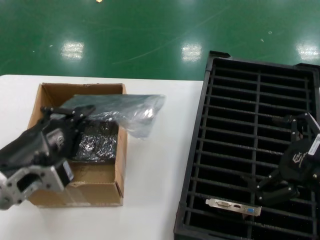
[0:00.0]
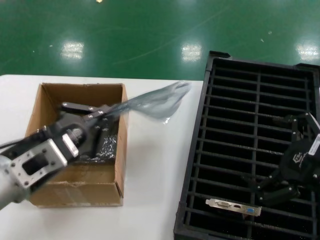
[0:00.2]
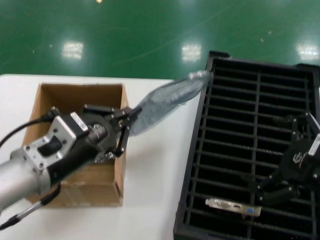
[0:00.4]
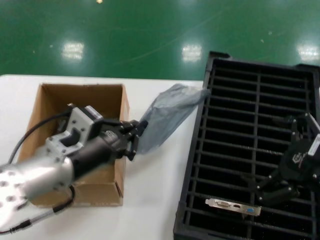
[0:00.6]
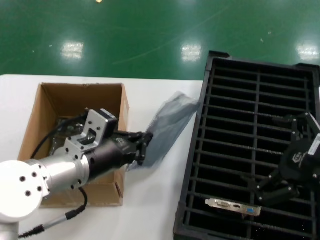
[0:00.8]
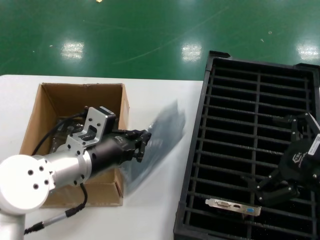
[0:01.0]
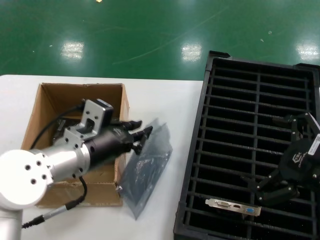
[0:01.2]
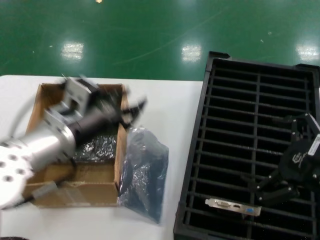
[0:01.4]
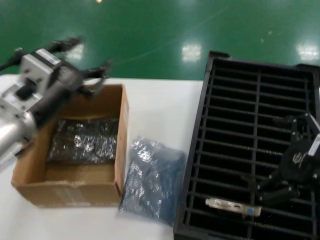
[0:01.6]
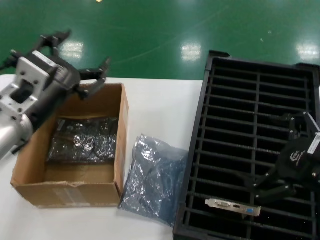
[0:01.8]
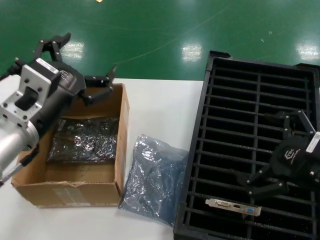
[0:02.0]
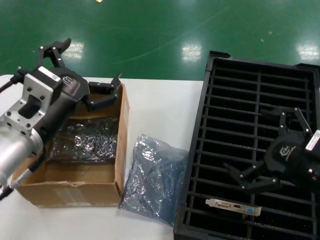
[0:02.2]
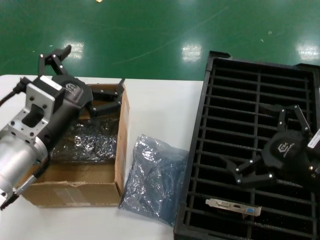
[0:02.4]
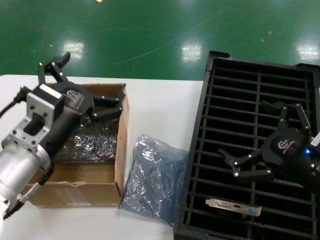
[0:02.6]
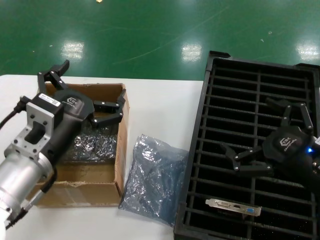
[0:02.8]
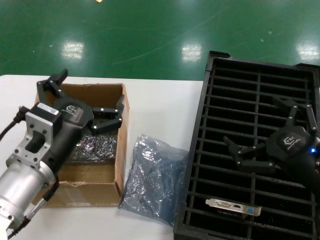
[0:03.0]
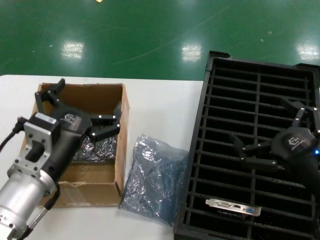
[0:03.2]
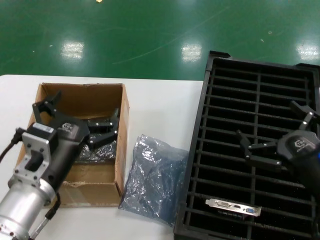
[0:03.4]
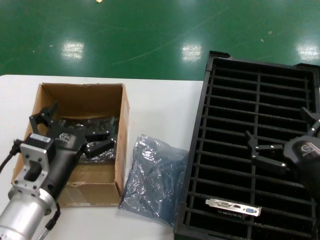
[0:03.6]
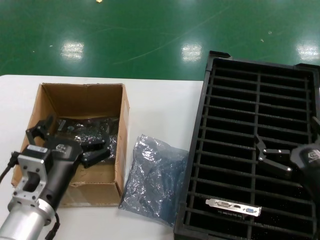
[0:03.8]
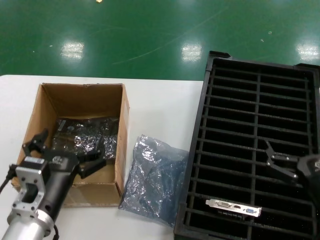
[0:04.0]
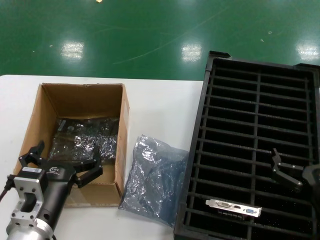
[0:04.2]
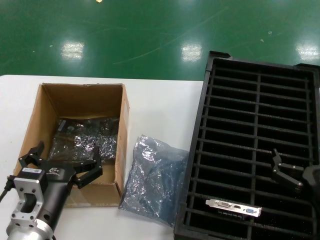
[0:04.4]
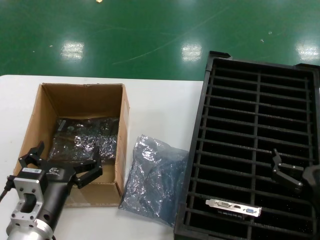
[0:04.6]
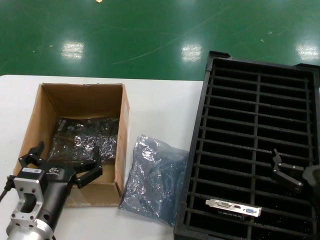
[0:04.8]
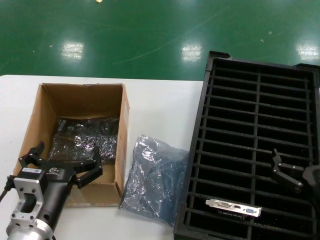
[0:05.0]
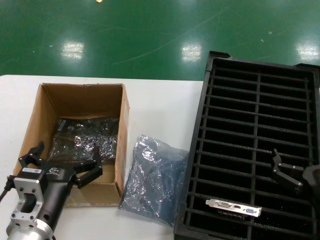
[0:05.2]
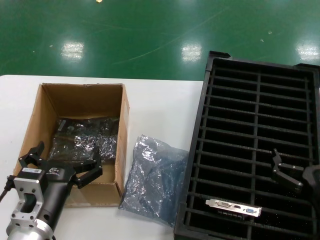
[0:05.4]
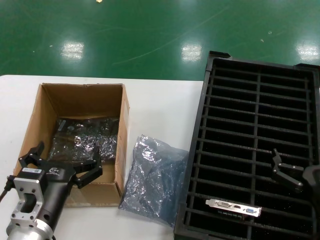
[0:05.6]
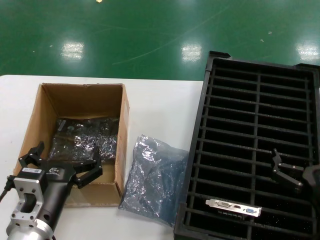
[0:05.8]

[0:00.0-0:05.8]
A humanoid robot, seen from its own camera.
Task of the whole recording: take out graphics card from box remove packaging put into black container.
Step, 0:00.0 to 0:03.2: Place the down the bag.
0:00.0 to 0:01.4: The left hand travels forward and to the right by roughly 10 cm.
0:01.4 to 0:02.8: The left hand moves some 5 cm. The right hand travels downward by some 5 cm.
0:02.8 to 0:04.4: The hands both shift downward by roughly 10 cm.
0:04.4 to 0:05.8: Neither hand changes place.
